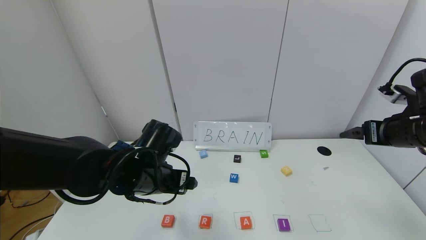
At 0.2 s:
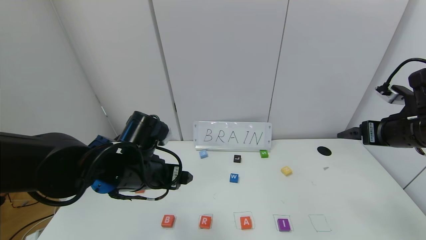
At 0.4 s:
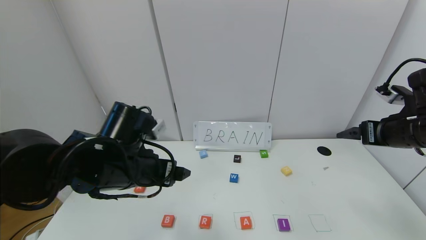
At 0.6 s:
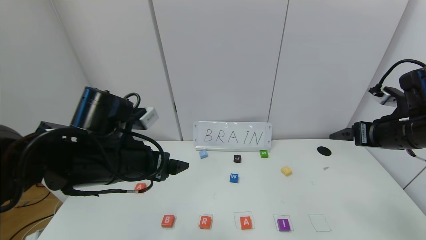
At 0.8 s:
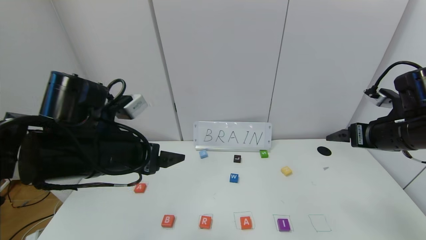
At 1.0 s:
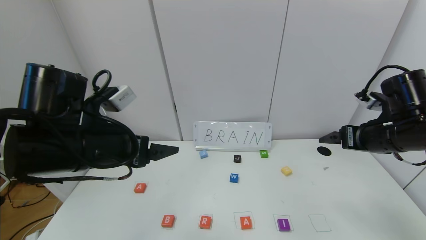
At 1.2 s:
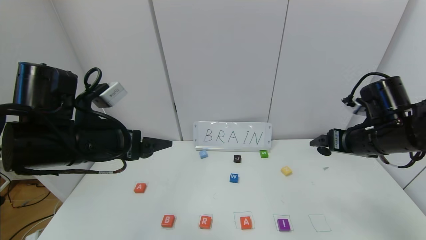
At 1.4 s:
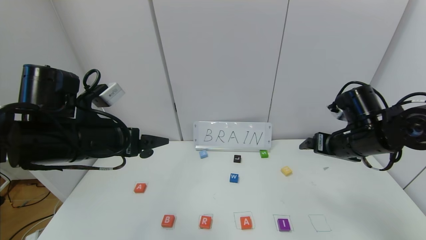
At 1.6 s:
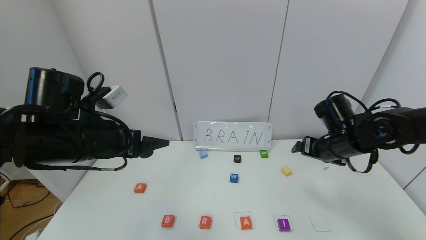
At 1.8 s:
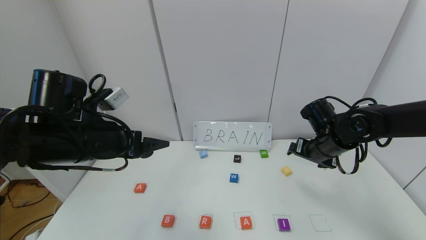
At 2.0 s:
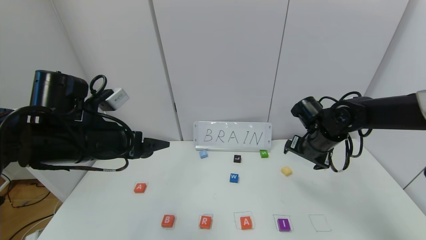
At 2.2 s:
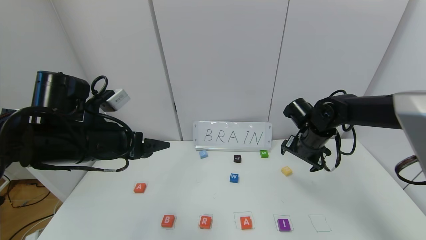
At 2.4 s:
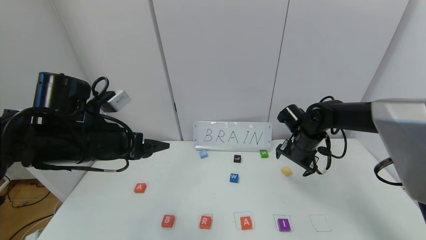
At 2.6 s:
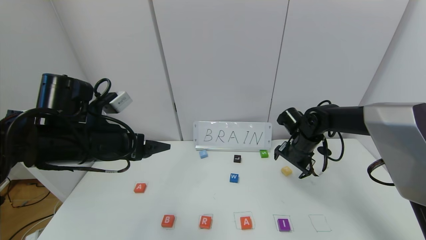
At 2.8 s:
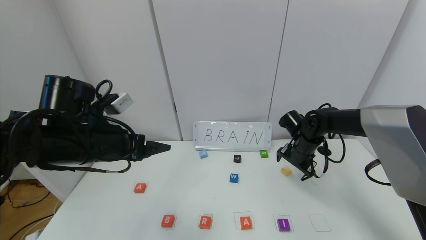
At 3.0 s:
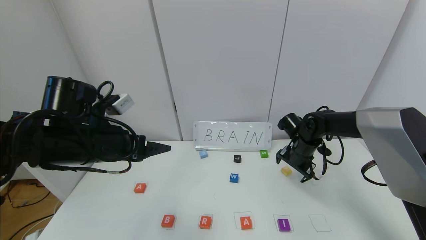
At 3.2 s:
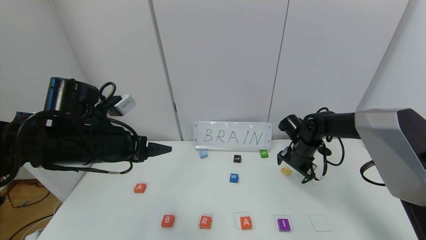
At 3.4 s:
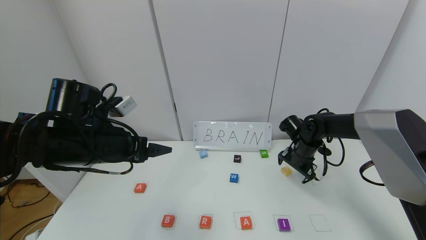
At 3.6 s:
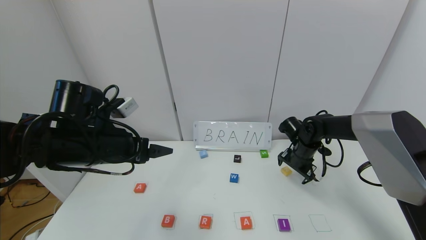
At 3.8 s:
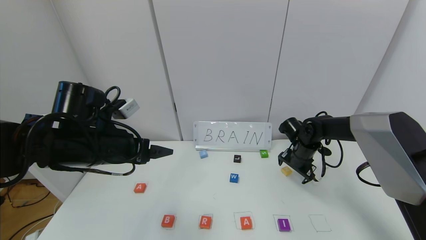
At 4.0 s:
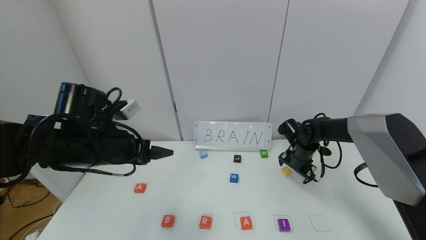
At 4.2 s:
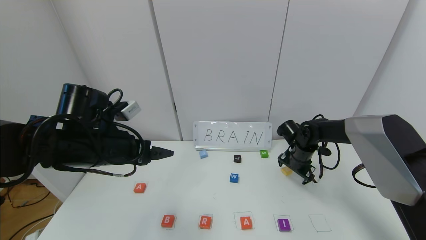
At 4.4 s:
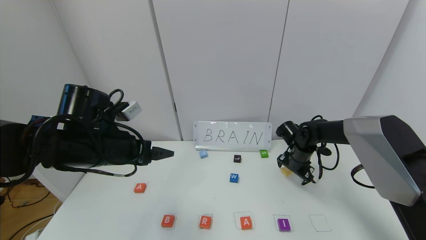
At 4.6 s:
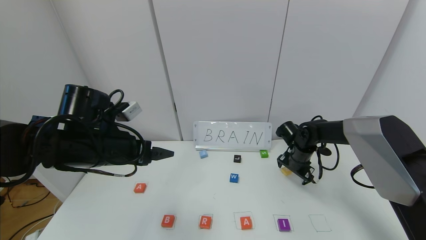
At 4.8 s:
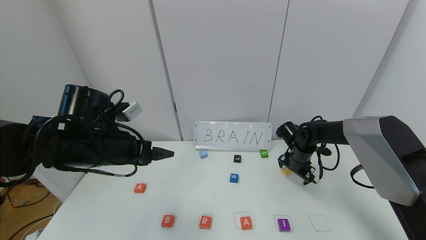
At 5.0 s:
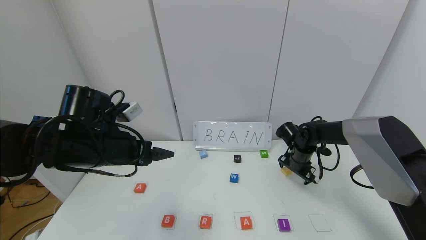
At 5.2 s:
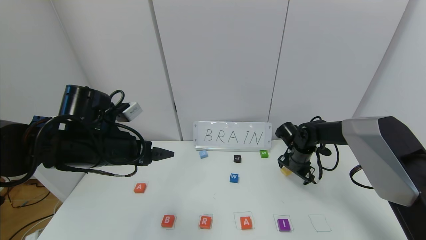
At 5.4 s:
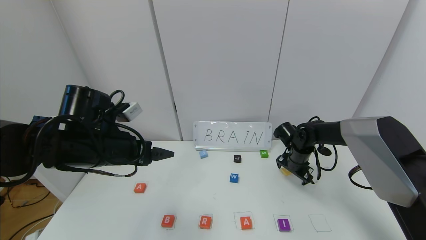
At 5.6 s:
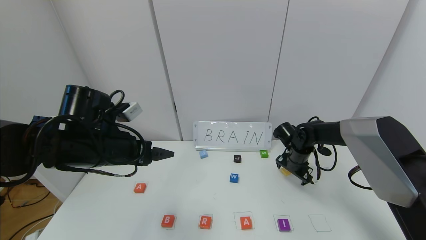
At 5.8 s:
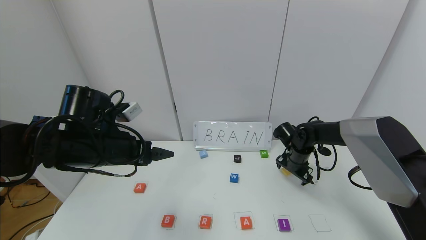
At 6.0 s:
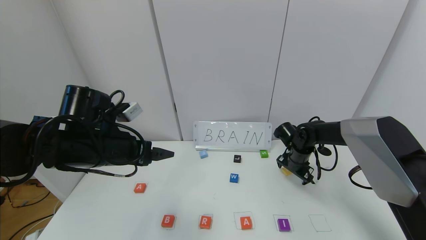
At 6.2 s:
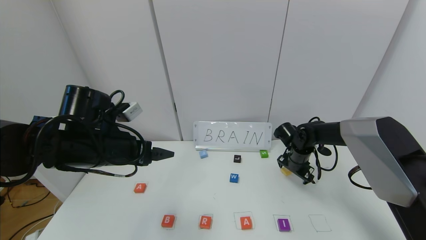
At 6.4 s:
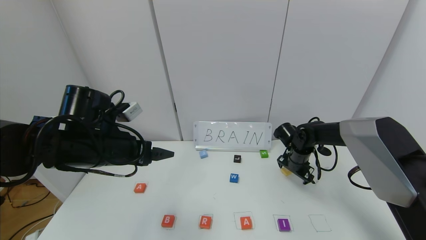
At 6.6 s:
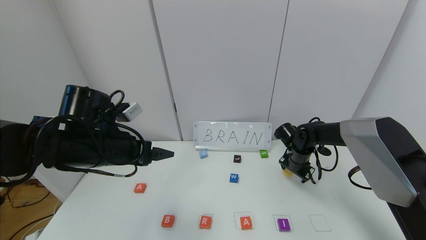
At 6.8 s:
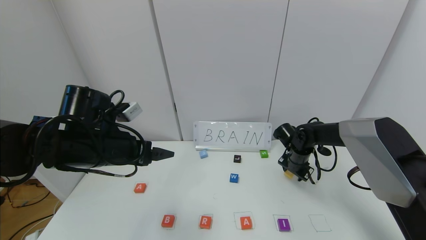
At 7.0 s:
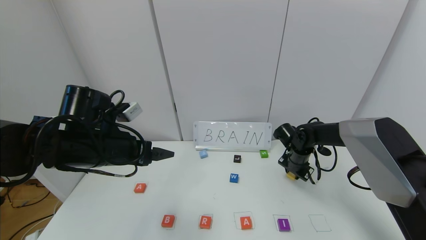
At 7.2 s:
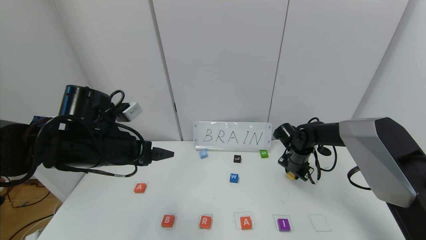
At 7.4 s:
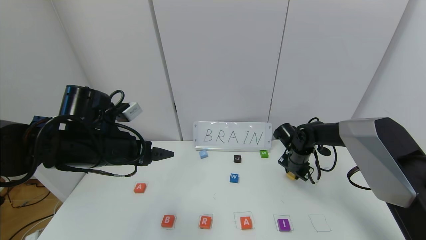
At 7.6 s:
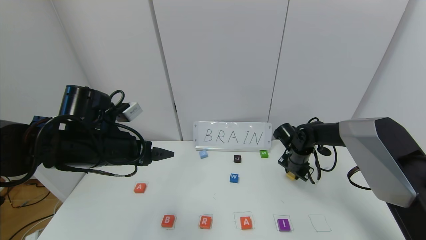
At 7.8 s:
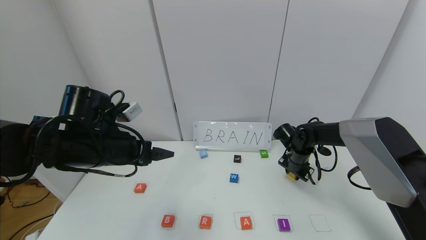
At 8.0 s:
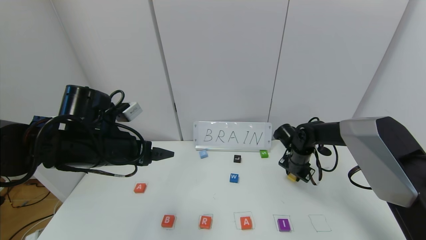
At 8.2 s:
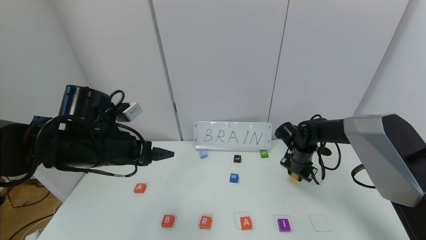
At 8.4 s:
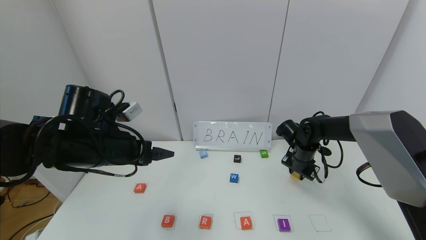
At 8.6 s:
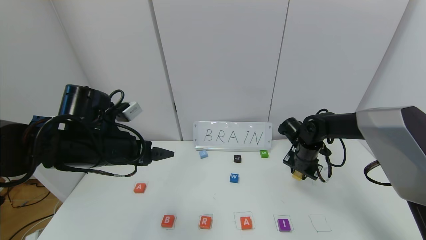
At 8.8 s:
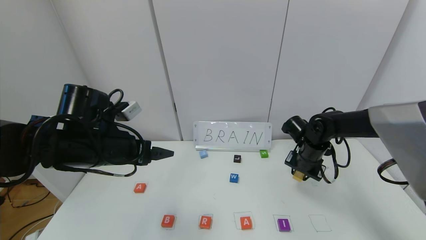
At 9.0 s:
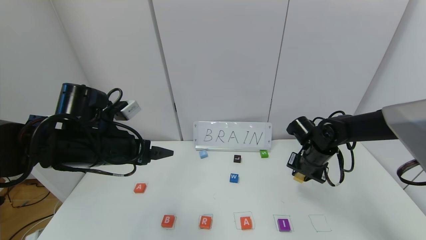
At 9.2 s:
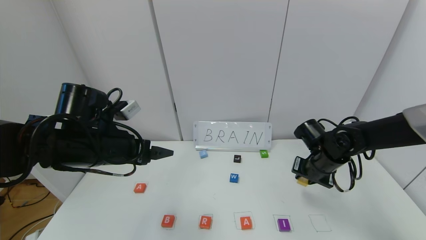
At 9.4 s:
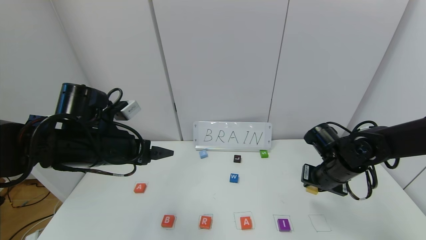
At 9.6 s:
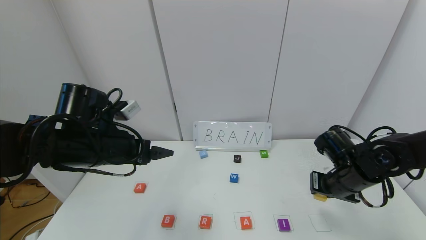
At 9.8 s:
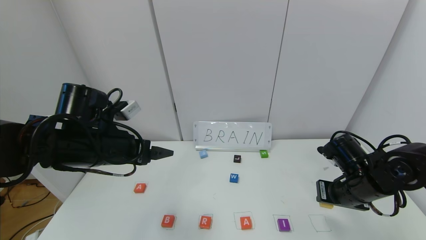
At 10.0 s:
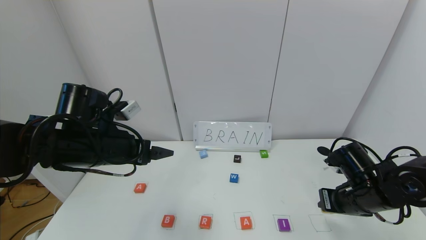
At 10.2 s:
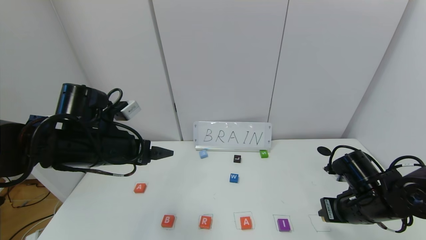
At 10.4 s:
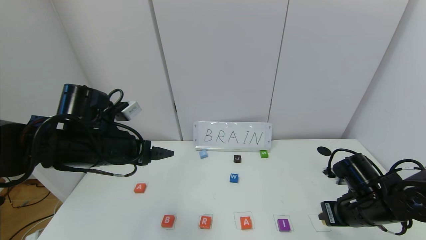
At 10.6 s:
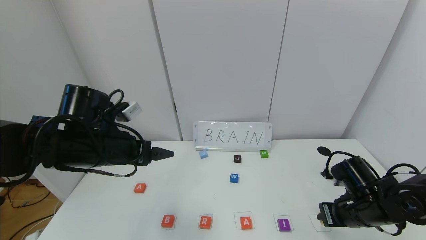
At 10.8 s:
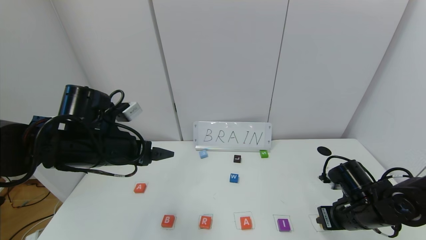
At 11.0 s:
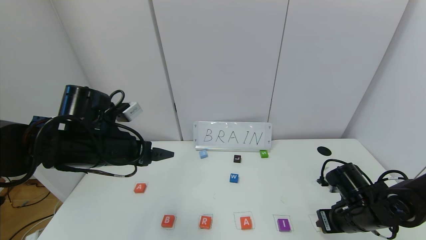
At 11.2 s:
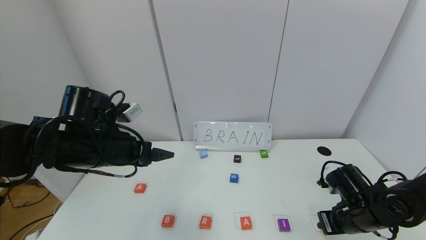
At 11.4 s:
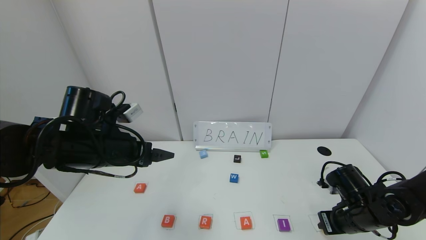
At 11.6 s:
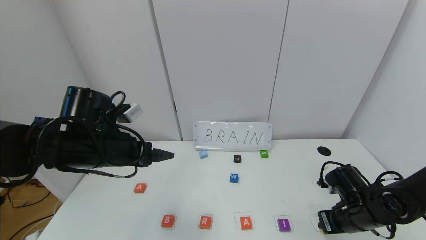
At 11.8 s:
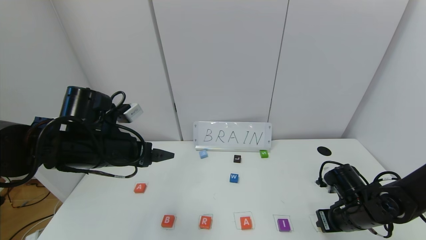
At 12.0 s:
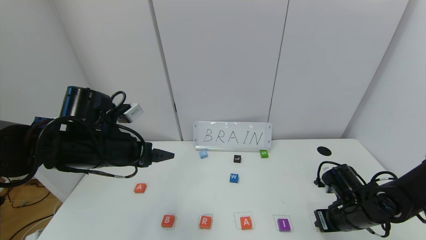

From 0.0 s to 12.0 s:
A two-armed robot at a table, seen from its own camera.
Task of the whole recording: use the gripper to find blocks with the letters b, a, a, and i on the table and arrange them into BAAI, then find r and N and turn the arranged baai into brian.
From 0.0 s to 1.6 s: The left gripper heads to the left and upward, covering approximately 10 cm; the right gripper heads to the left, downward and forward, covering some 15 cm.
From 1.6 s to 3.0 s: The right gripper moves forward and downward, about 10 cm.
From 3.0 s to 4.4 s: The grippers stay close to where they were, moving slightly.
From 4.4 s to 6.0 s: Neither gripper changes place.
From 6.0 s to 7.6 s: The right gripper closes.
From 7.6 s to 9.0 s: The right gripper goes approximately 10 cm backward and upward.
From 9.0 s to 10.4 s: The right gripper shifts roughly 15 cm backward.
From 10.4 s to 12.0 s: The right gripper shifts by roughly 5 cm.

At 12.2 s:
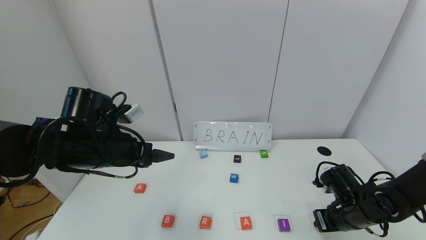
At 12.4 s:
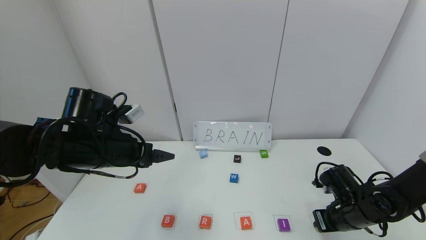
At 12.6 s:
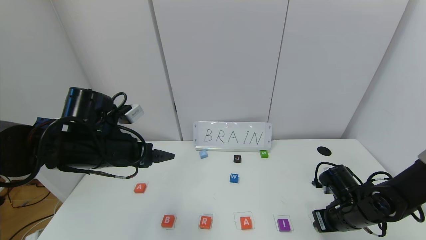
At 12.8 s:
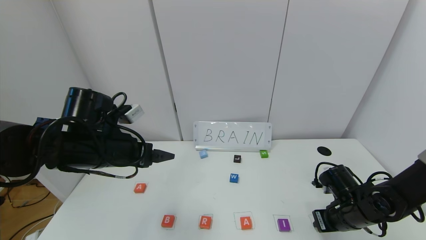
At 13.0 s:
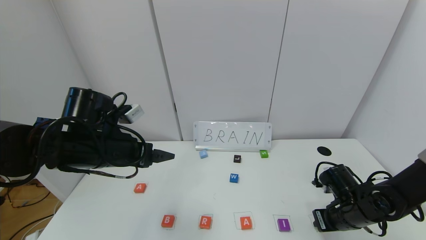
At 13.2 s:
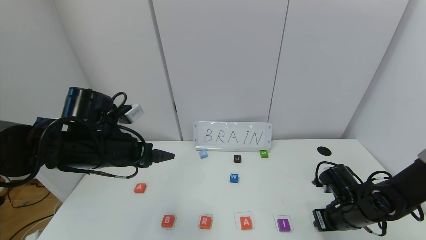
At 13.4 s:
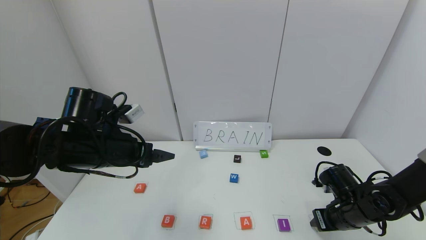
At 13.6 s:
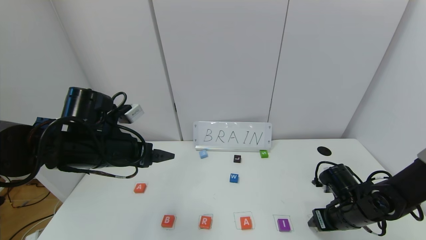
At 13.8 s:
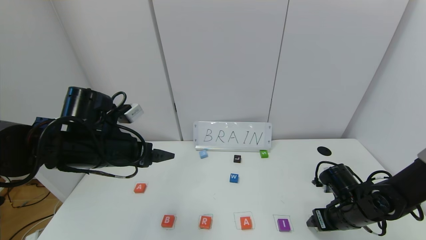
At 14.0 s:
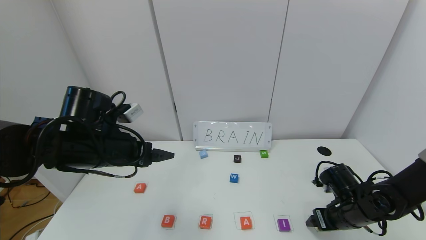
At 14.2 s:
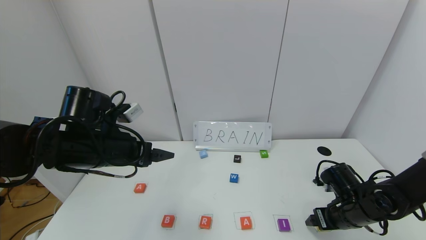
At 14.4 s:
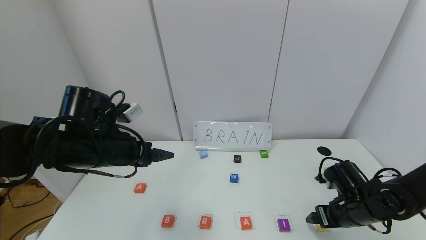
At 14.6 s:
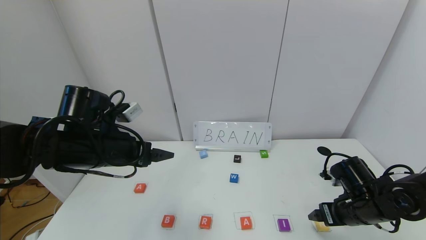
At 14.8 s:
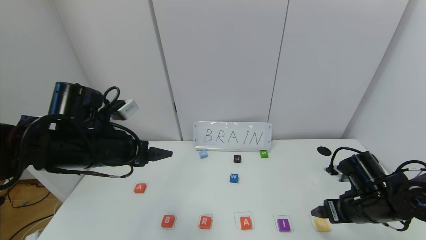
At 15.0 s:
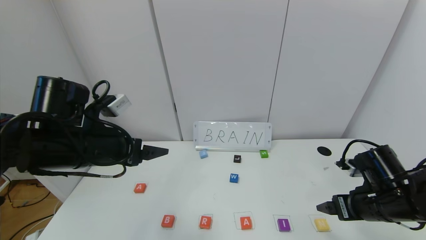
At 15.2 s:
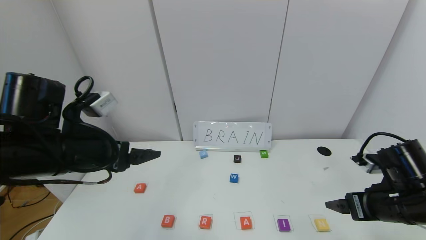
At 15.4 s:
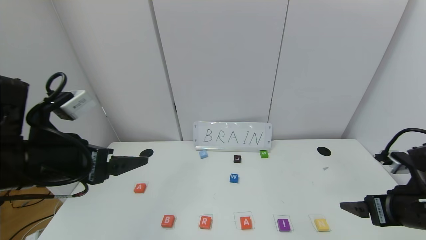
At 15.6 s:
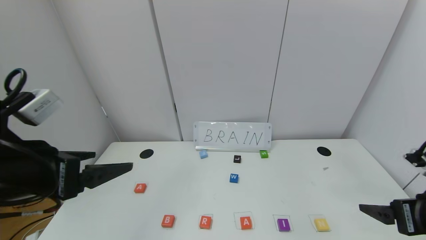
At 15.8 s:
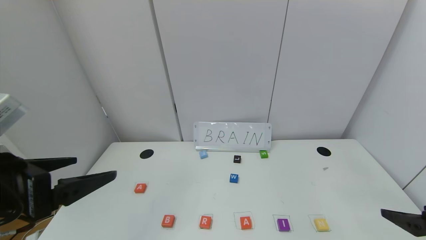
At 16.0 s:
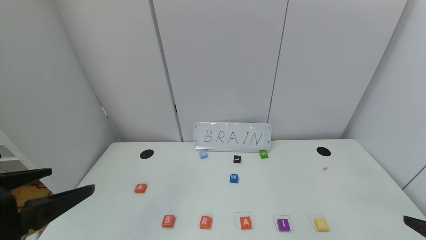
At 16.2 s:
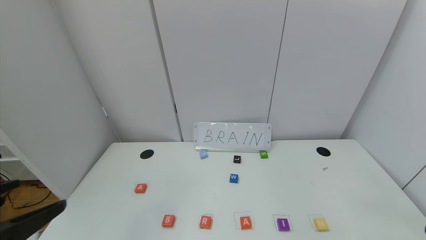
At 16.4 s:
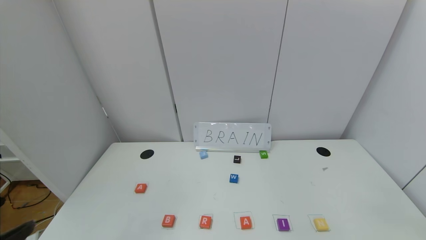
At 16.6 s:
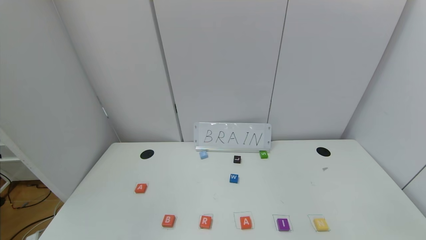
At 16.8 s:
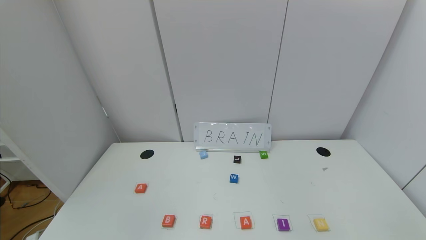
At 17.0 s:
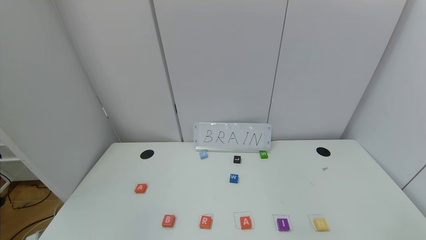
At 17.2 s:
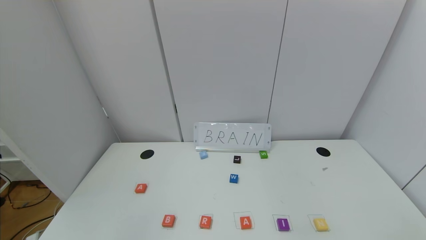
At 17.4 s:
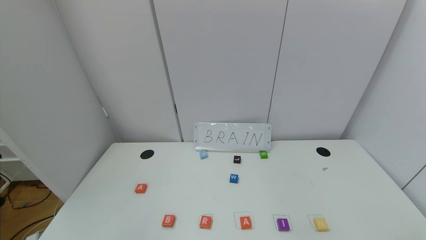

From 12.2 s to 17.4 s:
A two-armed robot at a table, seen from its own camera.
Task of the whole recording: use the gripper to find blocks with the letters b, a, a, and i on the table and arrange them into BAAI, then find r and N and turn the arranged baai into brian.
From 12.2 s to 14.0 s: The right gripper opens its fingers.
From 14.0 s to 15.6 s: The left gripper goes about 15 cm backward and upward; the right gripper moves upward and backward, approximately 20 cm.
From 15.6 s to 17.4 s: The grippers both shift backward by approximately 25 cm.
